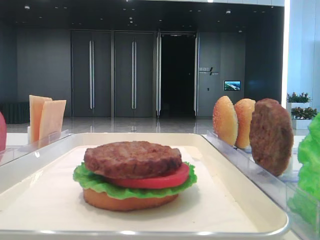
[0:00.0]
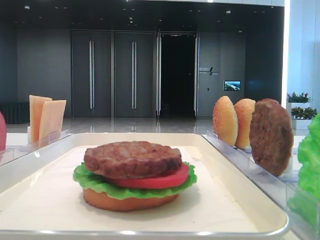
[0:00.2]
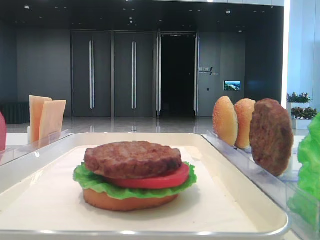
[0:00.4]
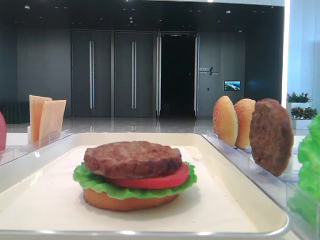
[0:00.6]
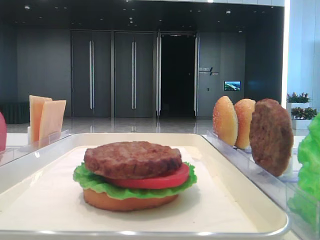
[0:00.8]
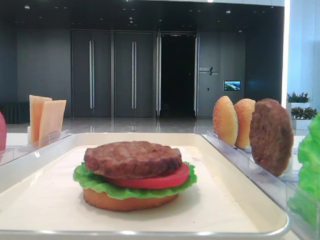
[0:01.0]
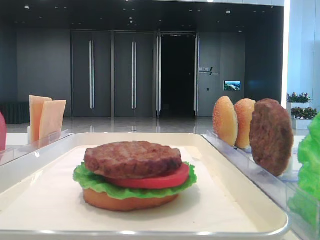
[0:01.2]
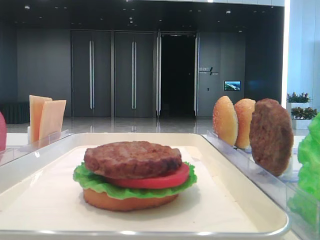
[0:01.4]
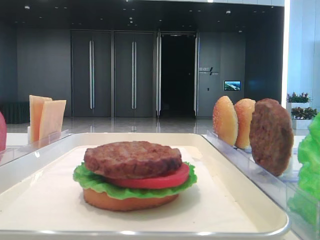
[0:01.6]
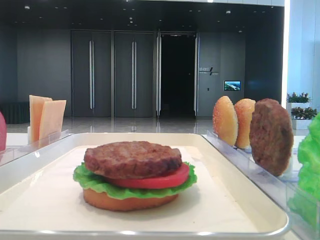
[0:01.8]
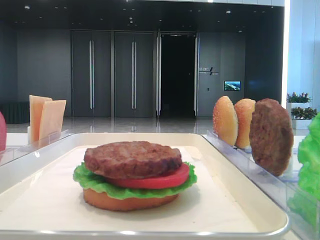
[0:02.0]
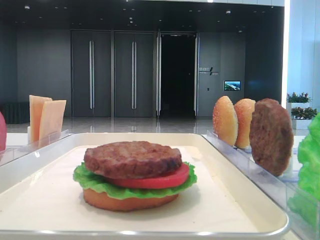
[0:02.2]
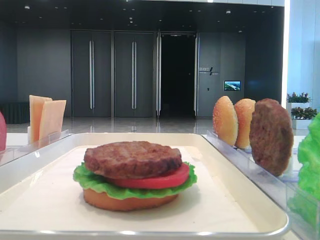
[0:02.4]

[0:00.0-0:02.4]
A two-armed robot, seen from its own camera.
1.2 to 2.4 s: Both grippers stay put.

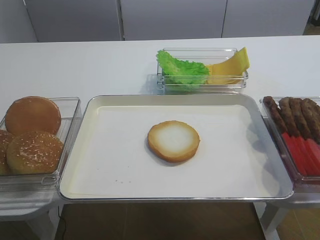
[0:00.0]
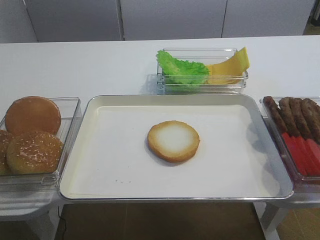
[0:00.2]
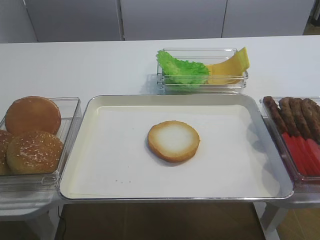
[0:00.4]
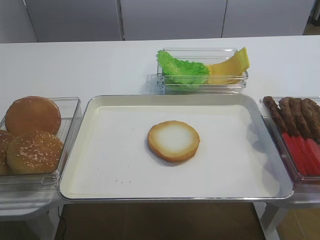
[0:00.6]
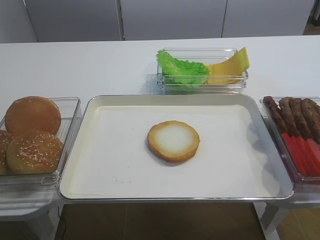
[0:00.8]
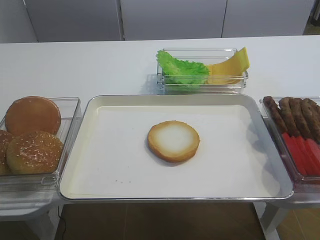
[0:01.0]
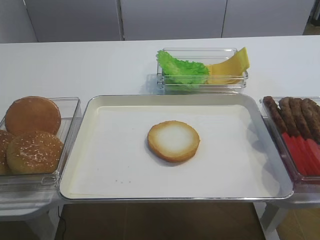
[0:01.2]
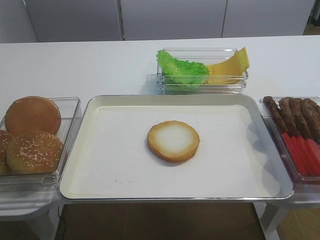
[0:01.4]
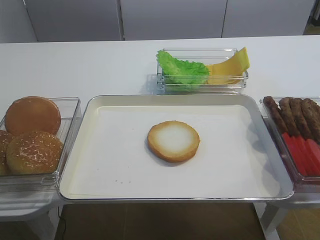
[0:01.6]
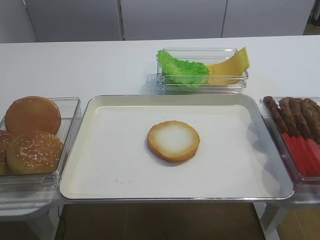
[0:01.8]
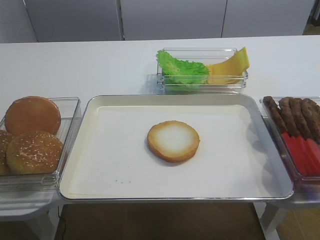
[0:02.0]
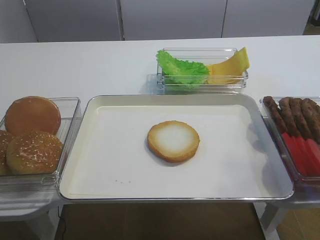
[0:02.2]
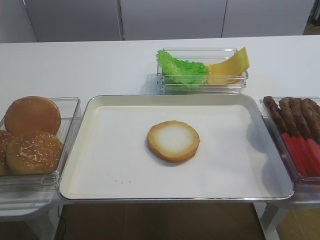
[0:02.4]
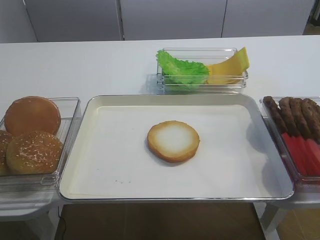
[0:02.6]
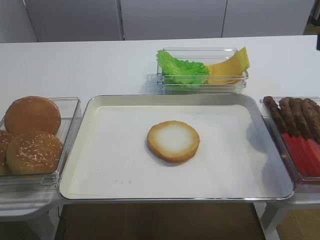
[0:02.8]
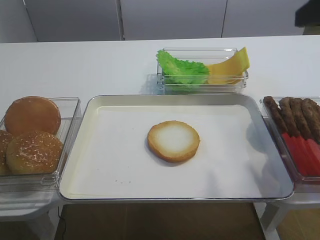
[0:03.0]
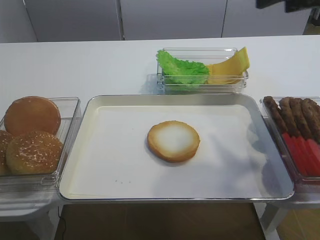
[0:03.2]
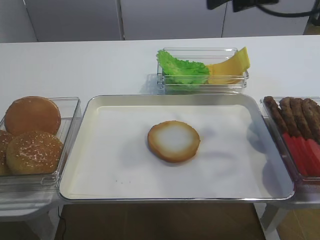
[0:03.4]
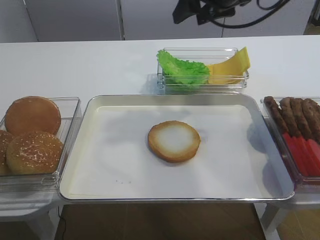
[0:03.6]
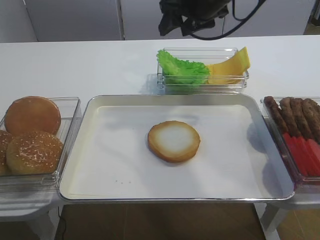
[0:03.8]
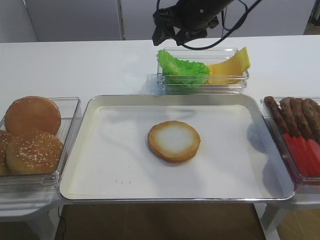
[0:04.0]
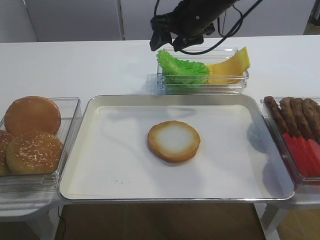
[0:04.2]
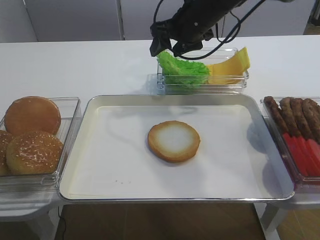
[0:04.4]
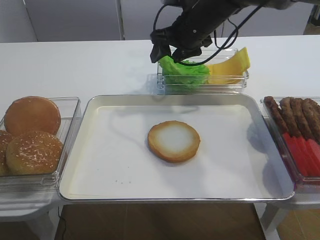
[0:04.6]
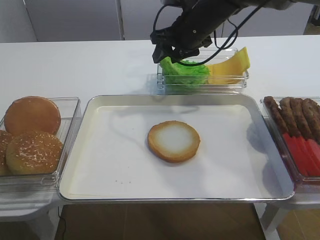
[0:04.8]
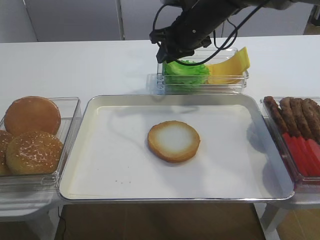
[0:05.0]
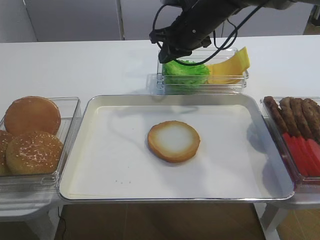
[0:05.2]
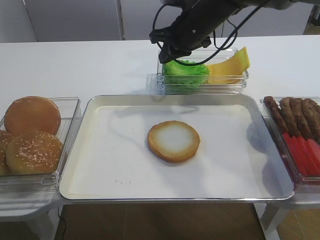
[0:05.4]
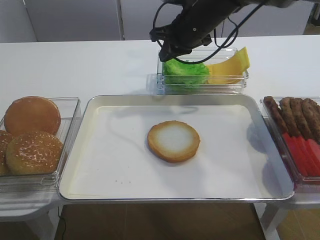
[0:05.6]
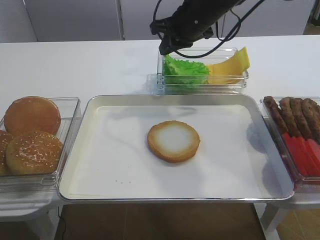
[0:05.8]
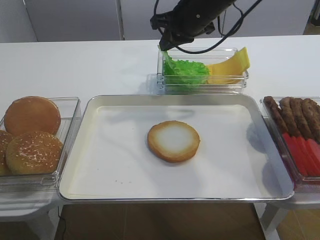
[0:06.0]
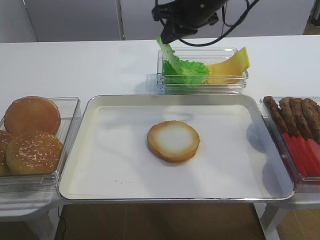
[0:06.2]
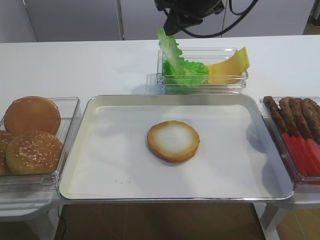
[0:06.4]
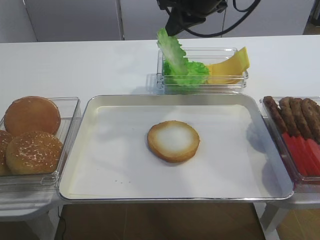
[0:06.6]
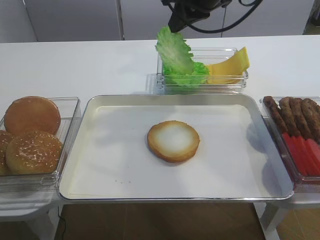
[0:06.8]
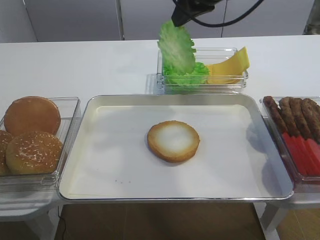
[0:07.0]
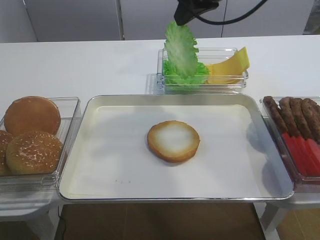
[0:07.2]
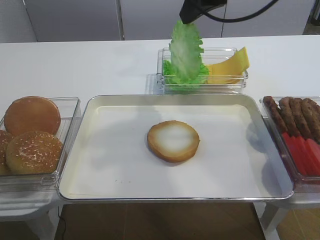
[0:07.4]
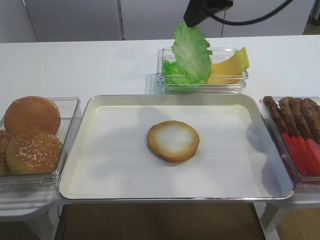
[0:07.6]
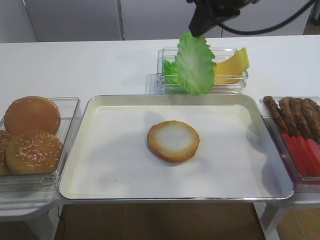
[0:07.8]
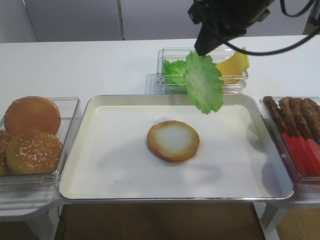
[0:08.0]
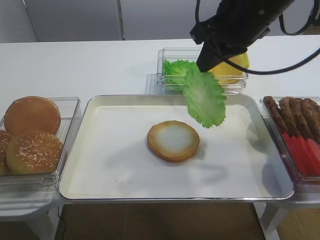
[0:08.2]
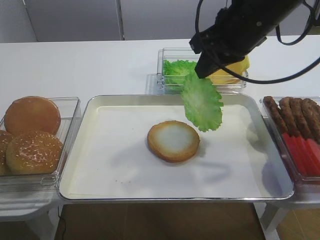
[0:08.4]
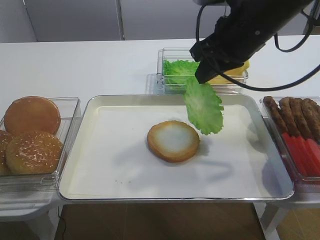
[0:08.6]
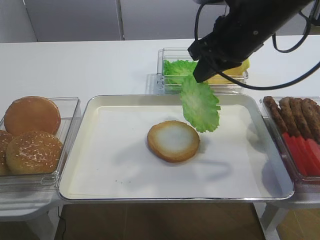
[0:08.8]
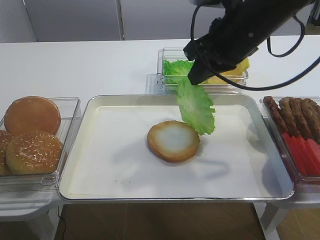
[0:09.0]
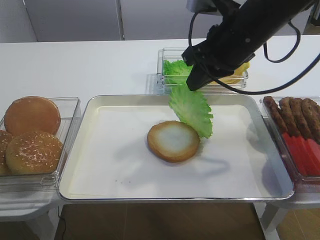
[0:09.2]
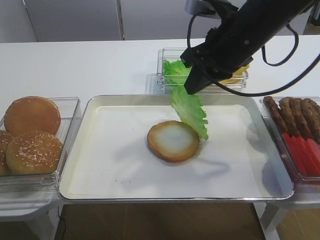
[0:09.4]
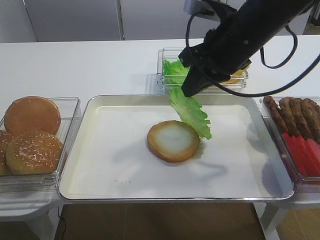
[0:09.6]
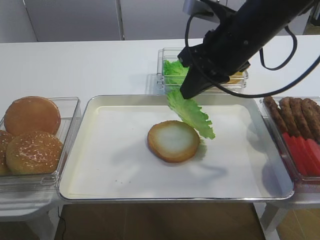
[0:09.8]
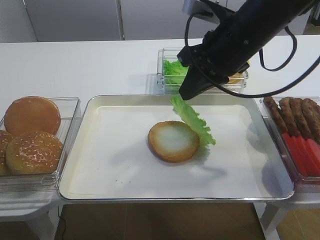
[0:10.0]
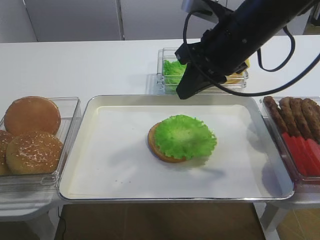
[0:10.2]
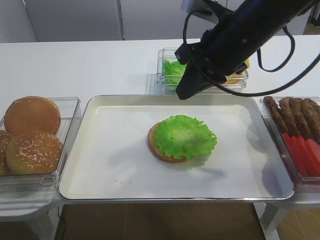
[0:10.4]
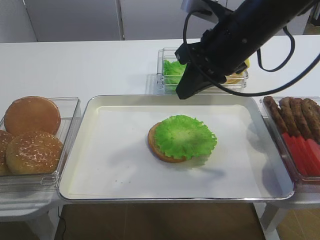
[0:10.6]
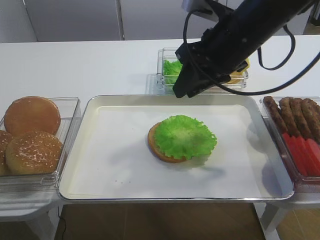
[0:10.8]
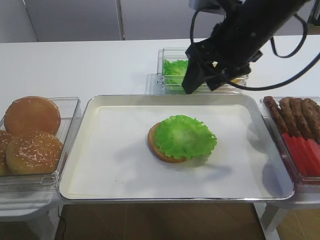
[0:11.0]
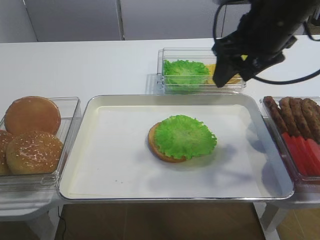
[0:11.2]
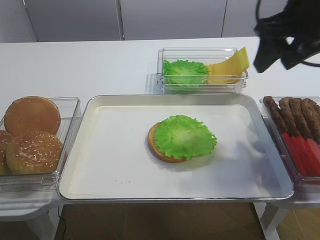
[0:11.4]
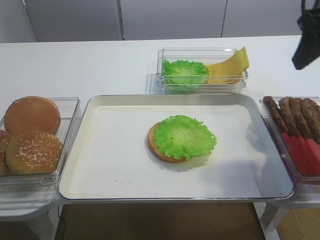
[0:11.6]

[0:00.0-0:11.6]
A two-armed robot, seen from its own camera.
Step, 0.0 to 6.2 s: Pick up the lettuce leaf with the right gripper.
Step, 6.4 to 10.2 s: Place the lettuce leaf on the bread slice with the right gripper.
1.4 to 2.8 s: The right gripper shifts roughly 20 cm forward and upward.
2.8 to 4.4 s: The right gripper travels forward and to the left by about 30 cm.
4.4 to 5.8 s: The right gripper closes.
5.8 to 7.2 s: The right gripper goes roughly 10 cm upward and backward.
7.2 to 8.8 s: The right gripper travels downward and backward by some 10 cm.
8.8 to 10.2 s: The grippers stay close to where they were, moving slightly.
10.2 to 11.6 s: The right gripper heads to the right and upward, covering approximately 15 cm, and opens up.

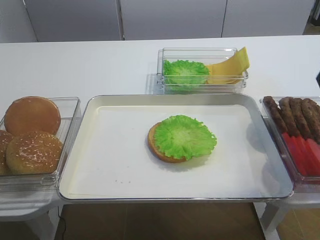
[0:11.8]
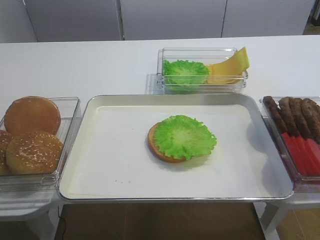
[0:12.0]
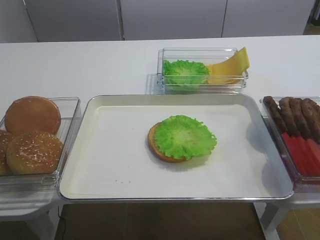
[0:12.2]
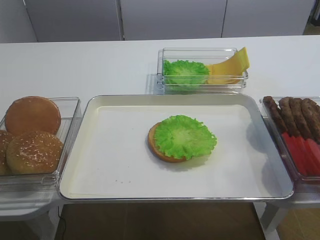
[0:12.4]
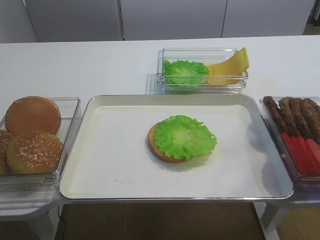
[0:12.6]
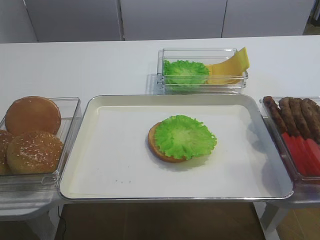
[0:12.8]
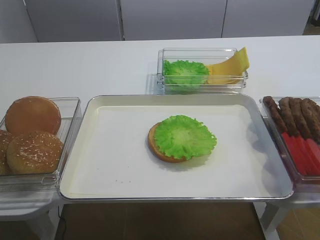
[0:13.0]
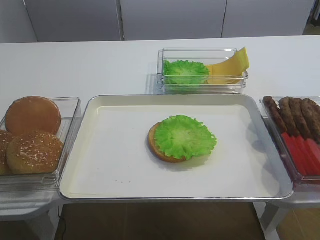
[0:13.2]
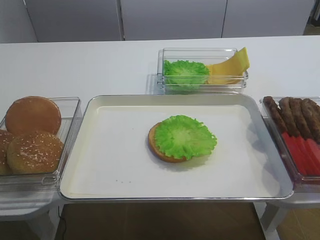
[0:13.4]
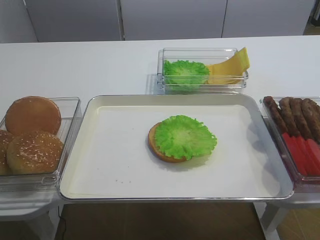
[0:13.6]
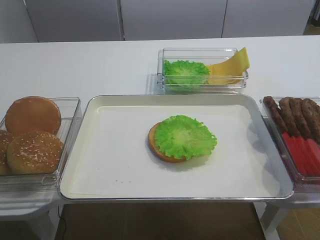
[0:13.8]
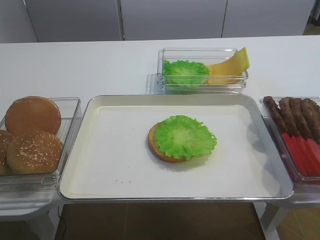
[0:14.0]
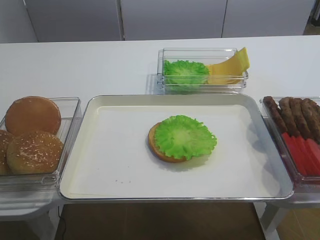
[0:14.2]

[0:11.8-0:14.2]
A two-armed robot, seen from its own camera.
11.8 to 13.0 s: The right gripper shifts roughly 25 cm backward.

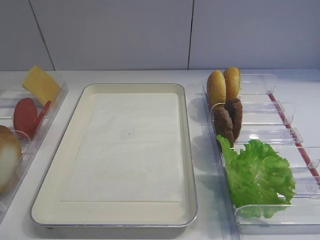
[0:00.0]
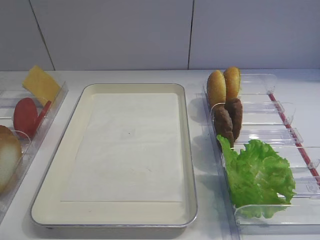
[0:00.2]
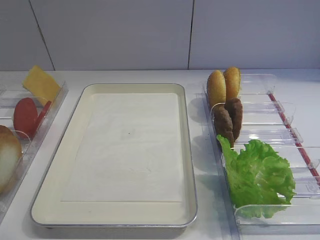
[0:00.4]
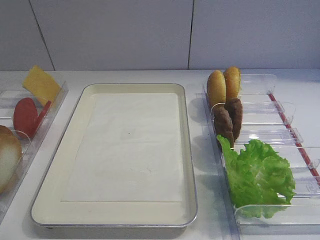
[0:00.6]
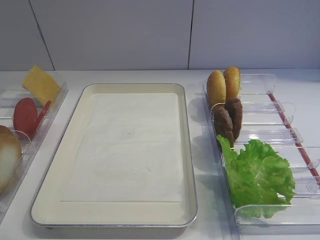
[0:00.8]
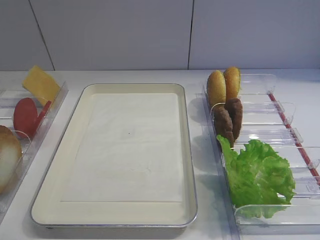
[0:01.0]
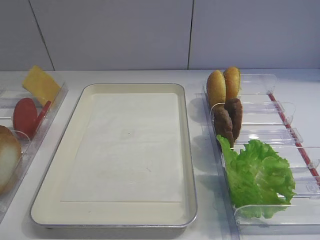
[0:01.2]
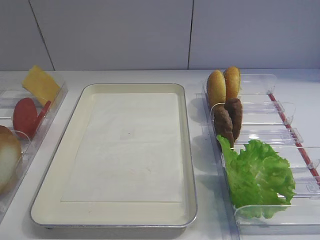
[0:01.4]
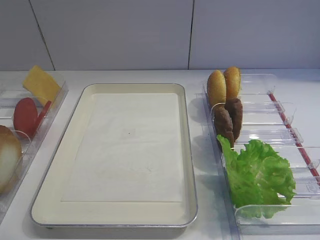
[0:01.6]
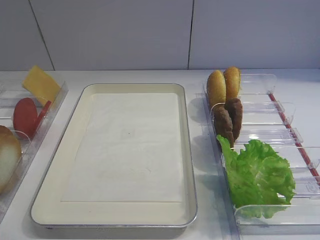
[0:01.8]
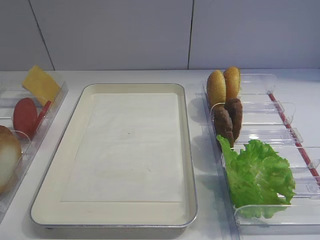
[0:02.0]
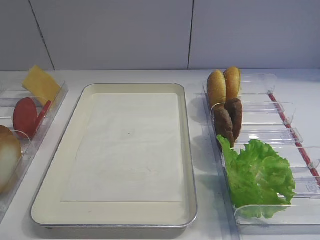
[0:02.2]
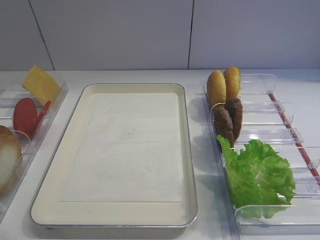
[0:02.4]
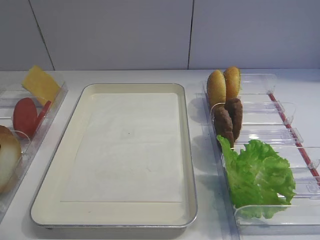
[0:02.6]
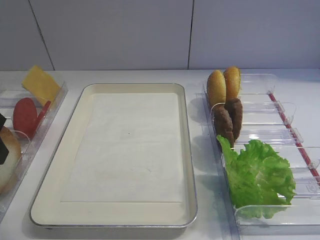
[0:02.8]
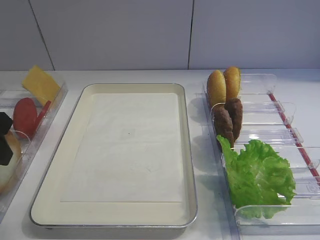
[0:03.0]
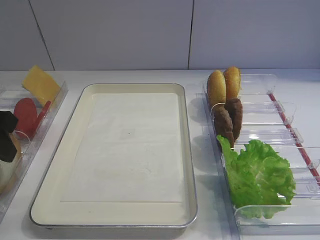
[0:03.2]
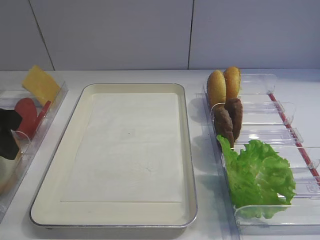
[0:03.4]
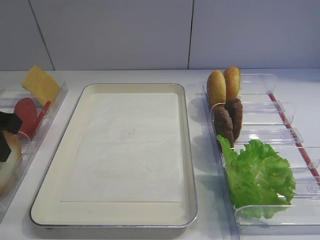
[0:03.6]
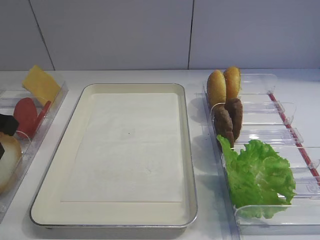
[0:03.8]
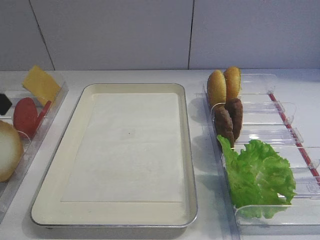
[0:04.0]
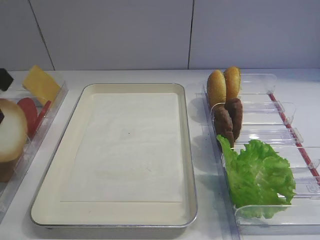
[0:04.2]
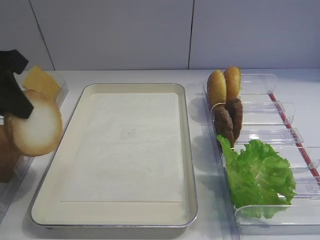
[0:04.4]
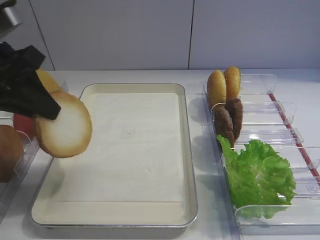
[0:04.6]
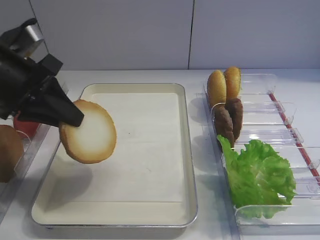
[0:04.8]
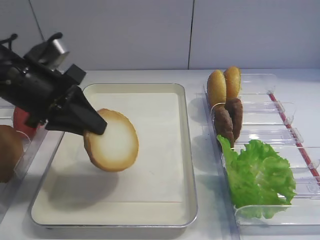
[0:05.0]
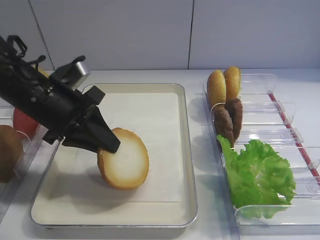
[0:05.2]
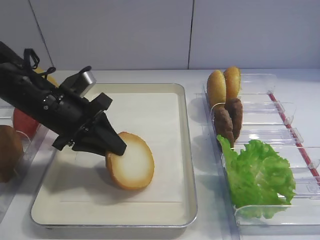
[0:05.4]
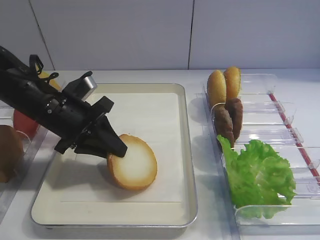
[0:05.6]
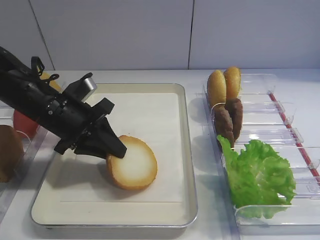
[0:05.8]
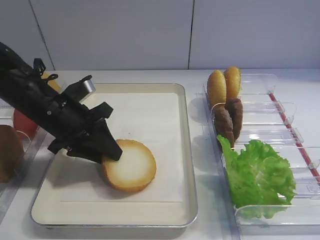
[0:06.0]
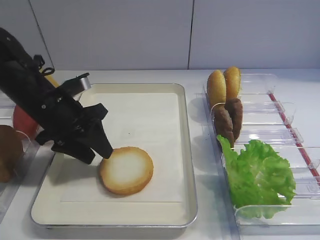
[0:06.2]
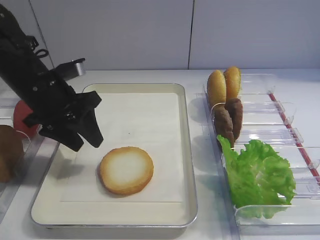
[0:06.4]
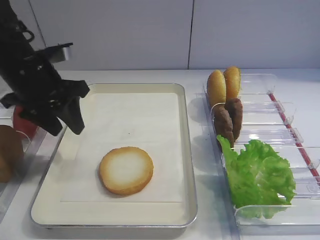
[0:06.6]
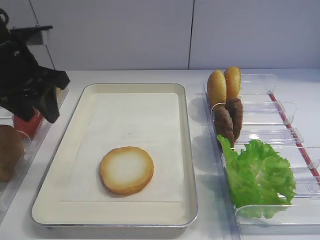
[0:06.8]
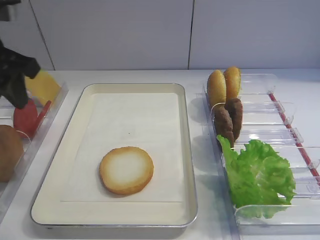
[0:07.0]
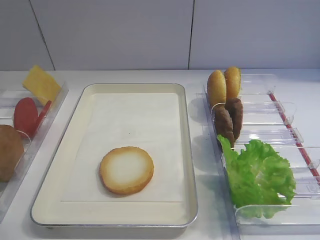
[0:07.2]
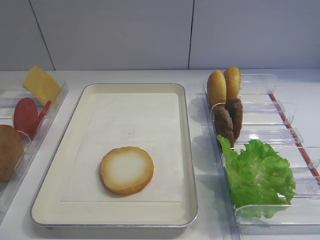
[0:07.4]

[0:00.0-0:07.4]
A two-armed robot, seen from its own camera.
Step, 0.0 to 4.0 s: Pick up the bread slice with the left gripper.
Step, 4.4 to 6.2 s: Place the bread slice on the tray with the left gripper.
1.4 to 3.0 s: The left gripper moves forward, about 20 cm, and opens its fingers.
3.0 to 4.4 s: The left gripper moves approximately 5 cm, and closes up.
4.4 to 6.0 s: The left gripper shifts roughly 15 cm downward, to the right and forward.
6.0 to 7.4 s: The left gripper travels upward, backward and to the left by approximately 25 cm, and opens its fingers.
